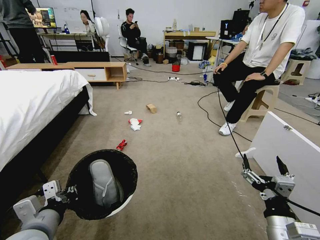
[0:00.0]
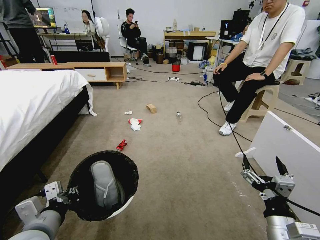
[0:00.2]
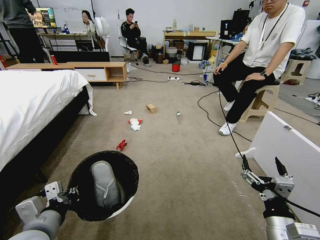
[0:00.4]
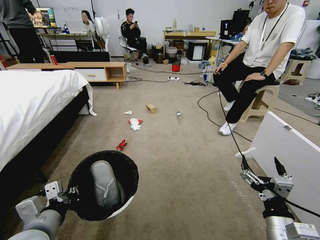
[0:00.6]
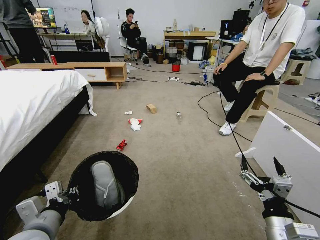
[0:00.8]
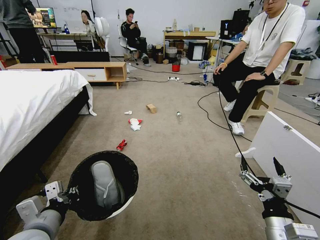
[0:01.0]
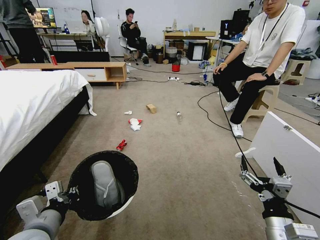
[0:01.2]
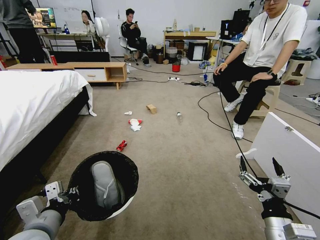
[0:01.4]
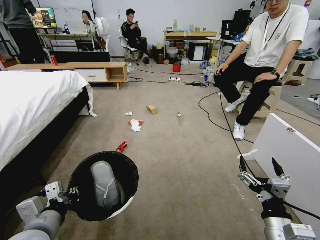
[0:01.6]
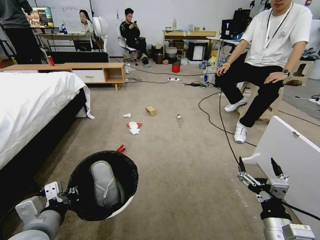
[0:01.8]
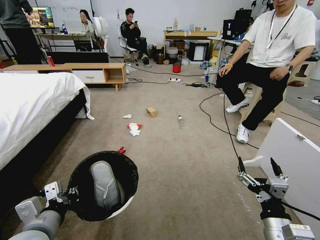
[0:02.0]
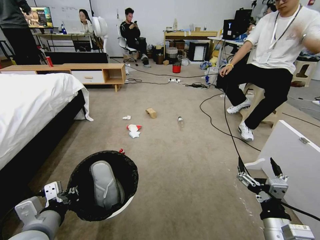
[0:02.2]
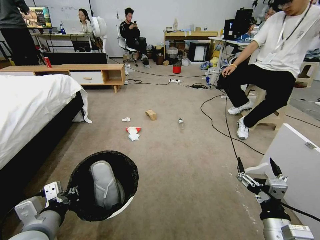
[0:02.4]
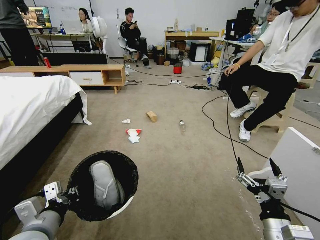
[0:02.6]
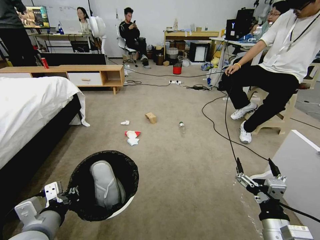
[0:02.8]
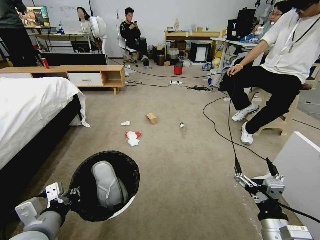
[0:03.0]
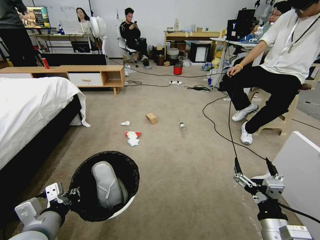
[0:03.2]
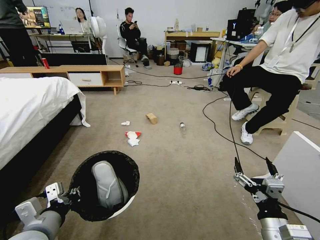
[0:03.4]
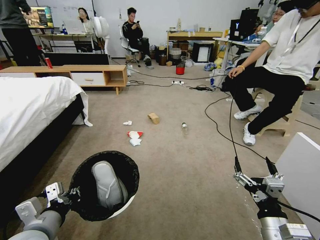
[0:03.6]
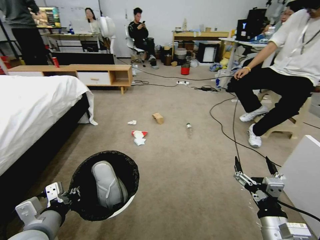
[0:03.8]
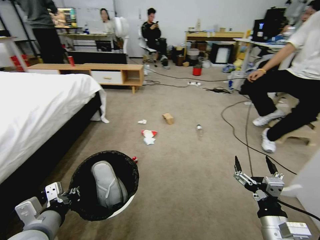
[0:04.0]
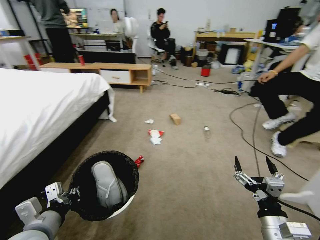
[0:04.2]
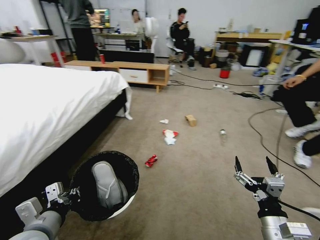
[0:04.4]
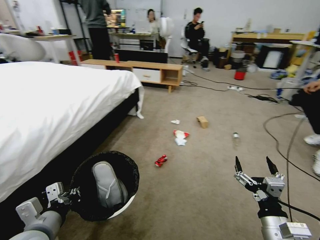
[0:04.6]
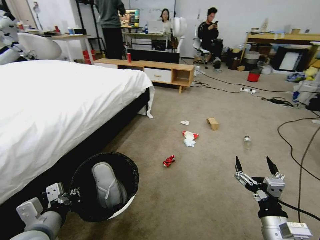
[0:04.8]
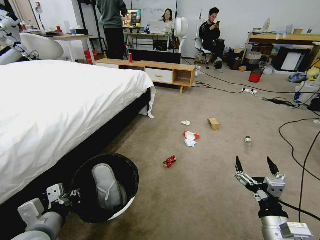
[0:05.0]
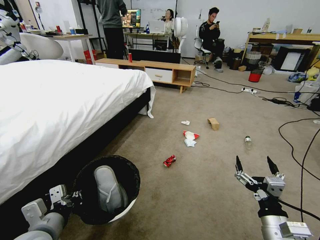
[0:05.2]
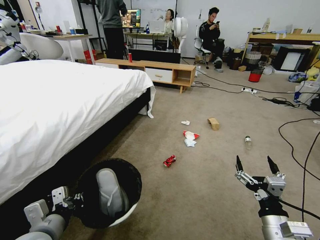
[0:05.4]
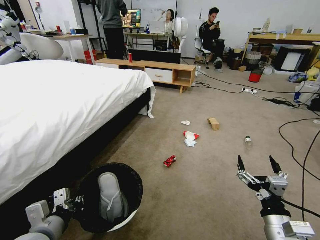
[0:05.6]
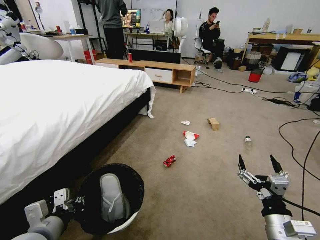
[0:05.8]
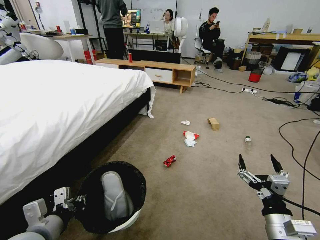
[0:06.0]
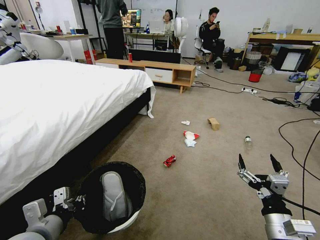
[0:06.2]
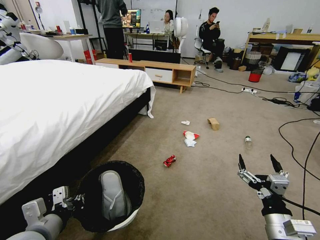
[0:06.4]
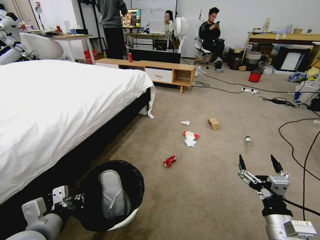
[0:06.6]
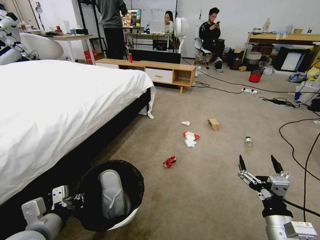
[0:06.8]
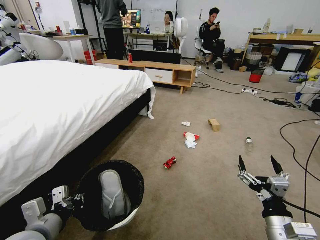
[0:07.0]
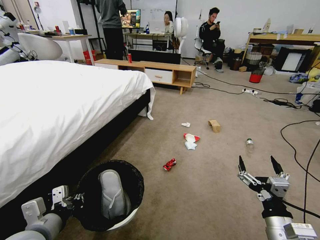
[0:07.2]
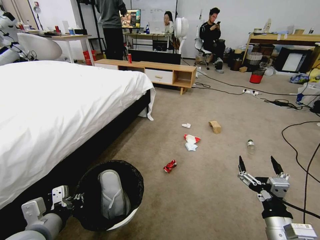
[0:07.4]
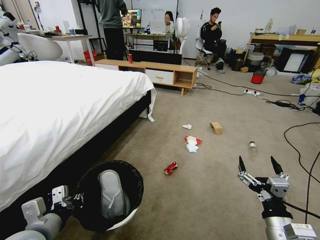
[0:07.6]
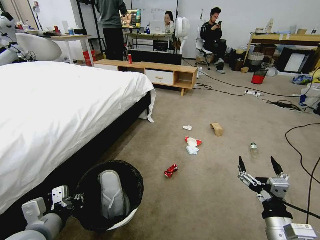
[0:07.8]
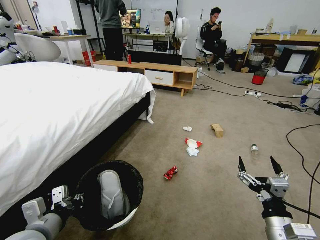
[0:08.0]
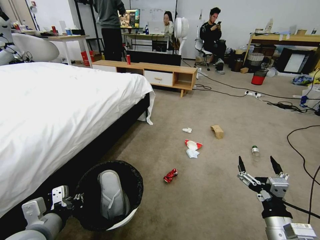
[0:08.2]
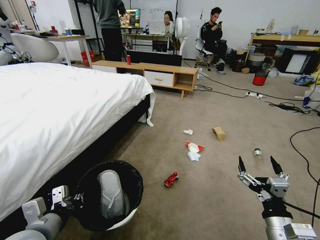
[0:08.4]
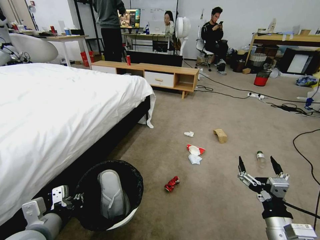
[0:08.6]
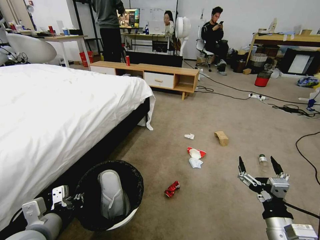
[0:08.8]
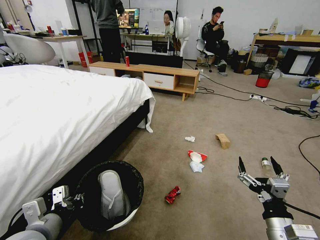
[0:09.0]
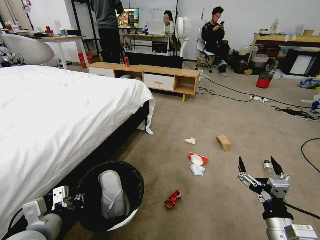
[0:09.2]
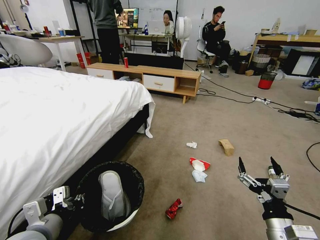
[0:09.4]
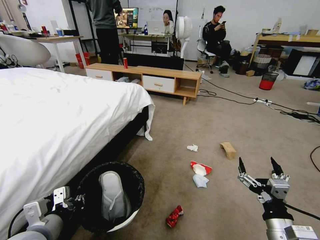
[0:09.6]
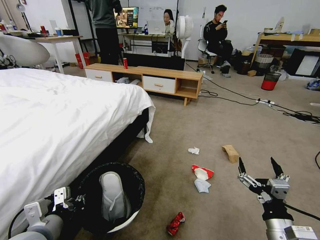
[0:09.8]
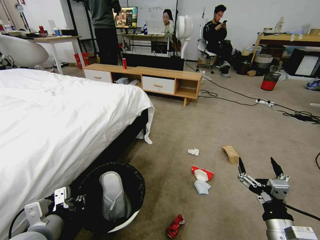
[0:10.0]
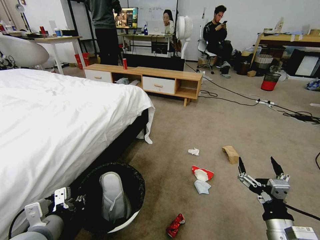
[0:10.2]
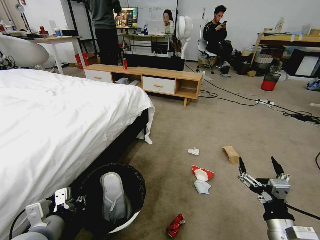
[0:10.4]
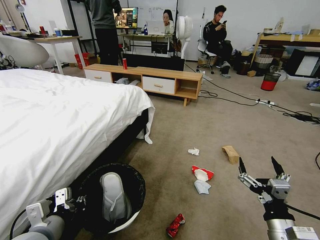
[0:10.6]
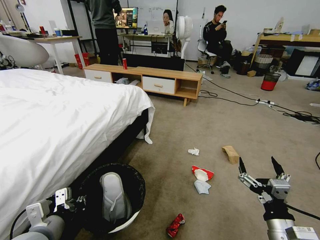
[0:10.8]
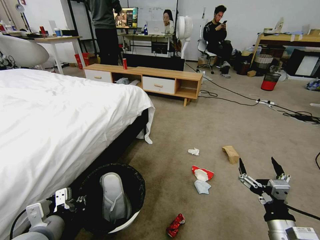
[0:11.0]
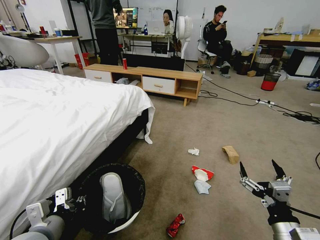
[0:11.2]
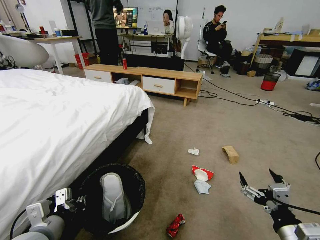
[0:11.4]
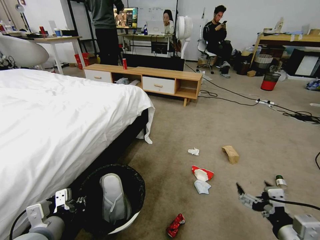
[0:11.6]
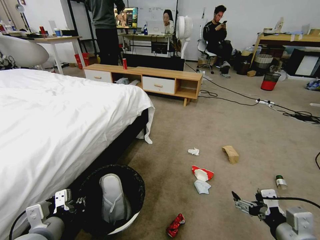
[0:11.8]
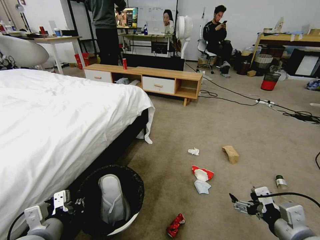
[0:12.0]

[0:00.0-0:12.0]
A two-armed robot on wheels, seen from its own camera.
Task of the whole recording: Pick up the trash bin and place the garbage on the floor into it.
0:06.0 to 0:07.6: Neither gripper changes place.
0:10.4 to 0:12.0: The right gripper moves upward, approximately 5 cm.

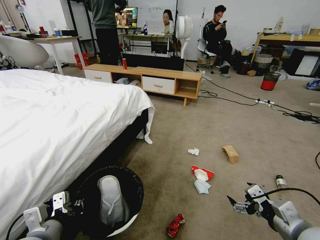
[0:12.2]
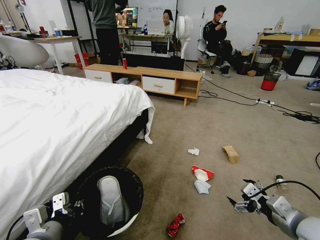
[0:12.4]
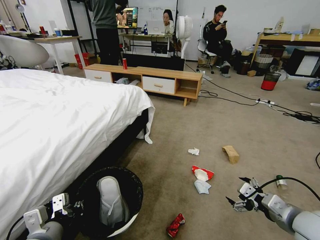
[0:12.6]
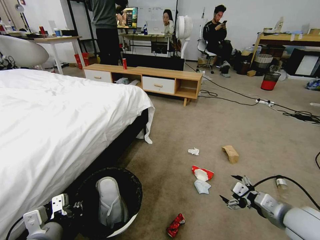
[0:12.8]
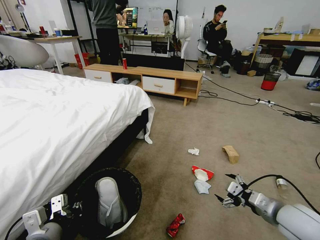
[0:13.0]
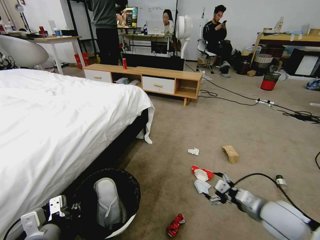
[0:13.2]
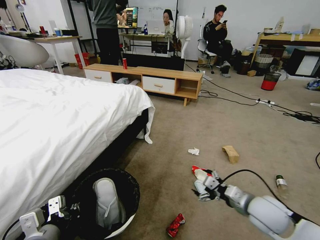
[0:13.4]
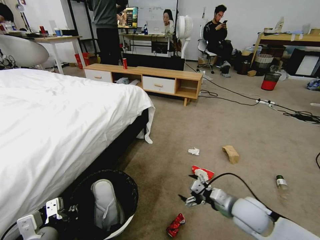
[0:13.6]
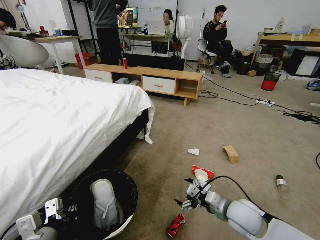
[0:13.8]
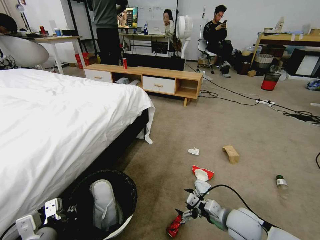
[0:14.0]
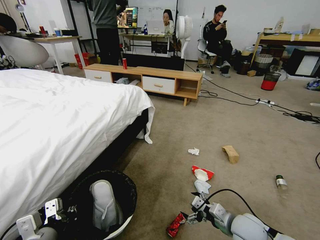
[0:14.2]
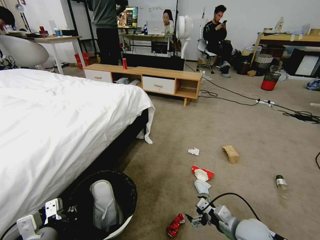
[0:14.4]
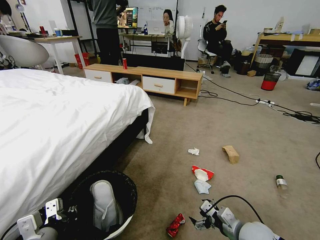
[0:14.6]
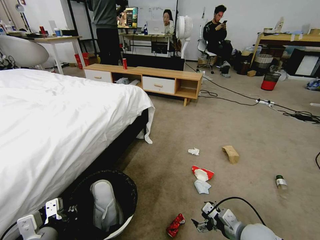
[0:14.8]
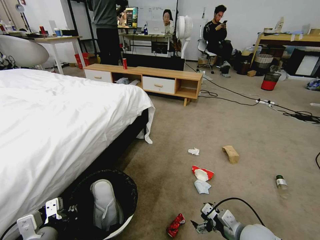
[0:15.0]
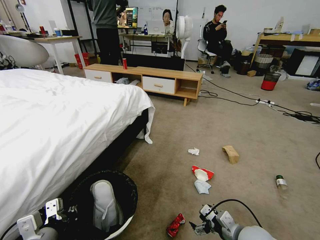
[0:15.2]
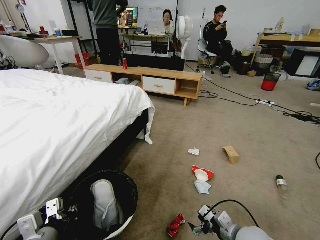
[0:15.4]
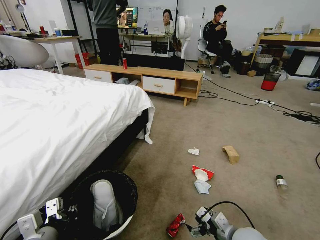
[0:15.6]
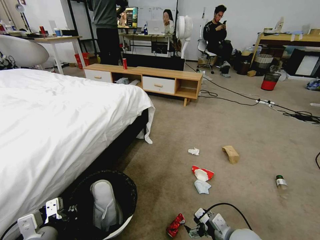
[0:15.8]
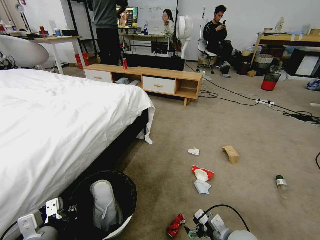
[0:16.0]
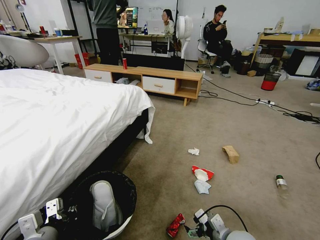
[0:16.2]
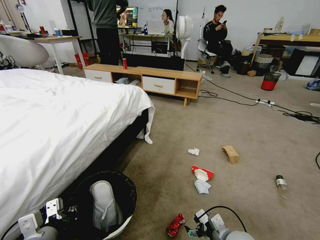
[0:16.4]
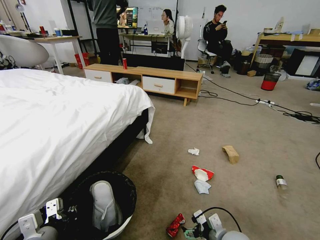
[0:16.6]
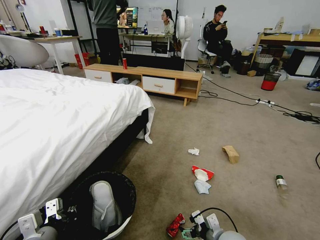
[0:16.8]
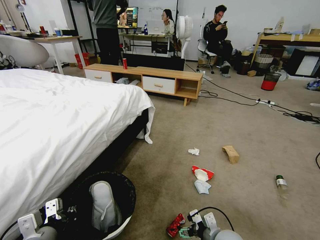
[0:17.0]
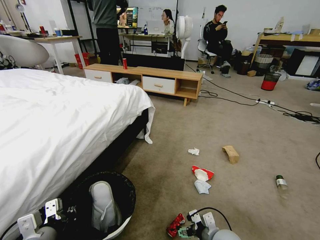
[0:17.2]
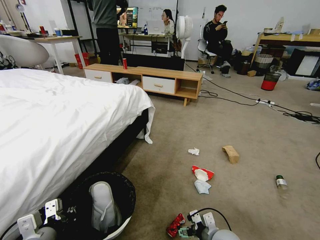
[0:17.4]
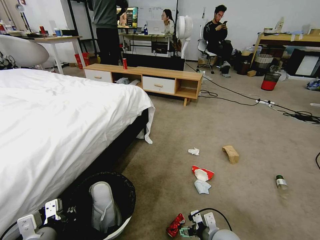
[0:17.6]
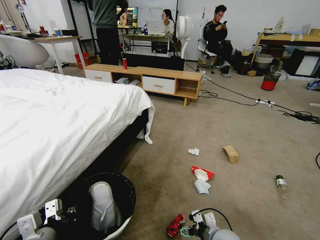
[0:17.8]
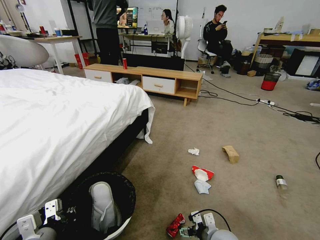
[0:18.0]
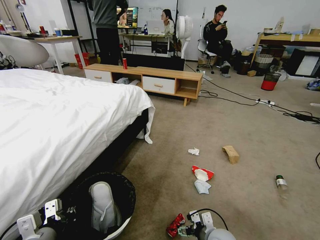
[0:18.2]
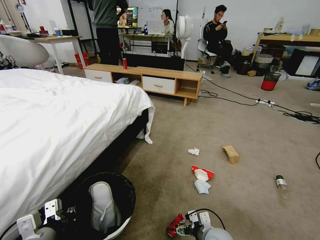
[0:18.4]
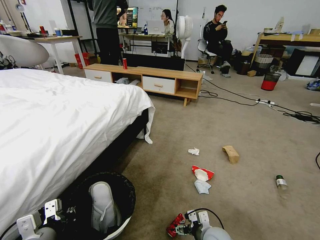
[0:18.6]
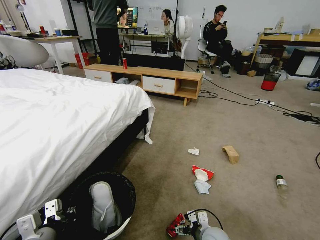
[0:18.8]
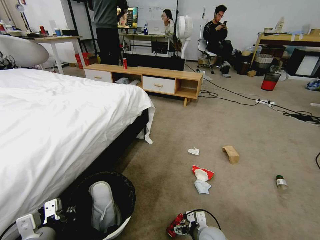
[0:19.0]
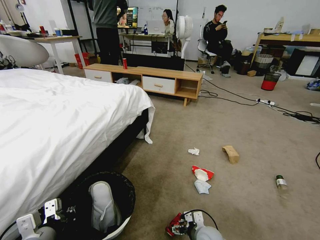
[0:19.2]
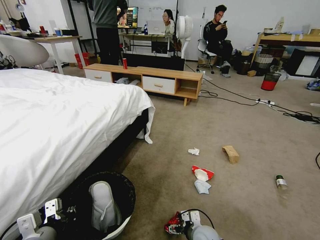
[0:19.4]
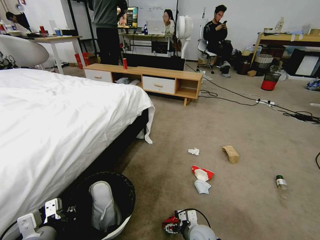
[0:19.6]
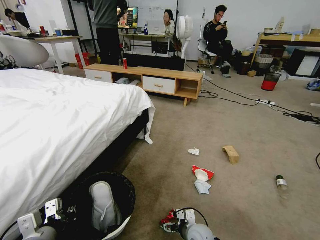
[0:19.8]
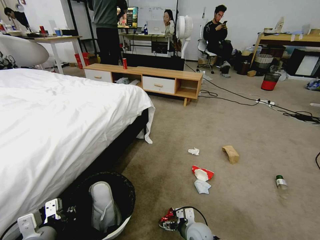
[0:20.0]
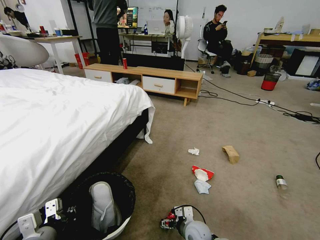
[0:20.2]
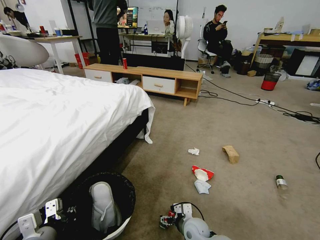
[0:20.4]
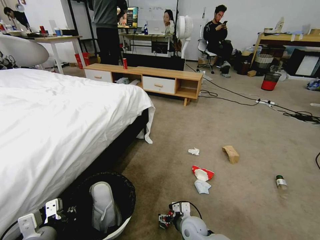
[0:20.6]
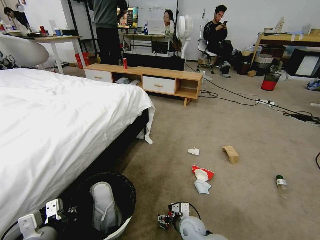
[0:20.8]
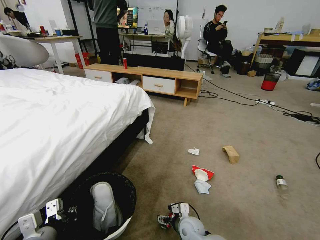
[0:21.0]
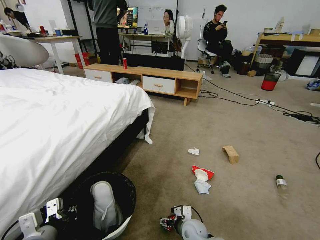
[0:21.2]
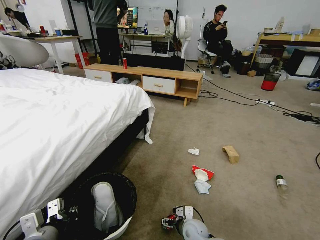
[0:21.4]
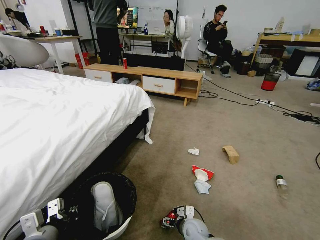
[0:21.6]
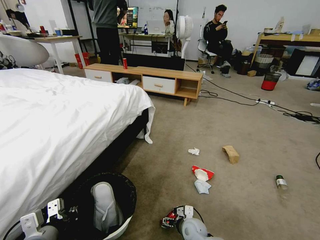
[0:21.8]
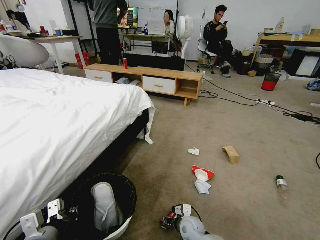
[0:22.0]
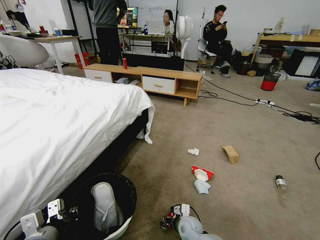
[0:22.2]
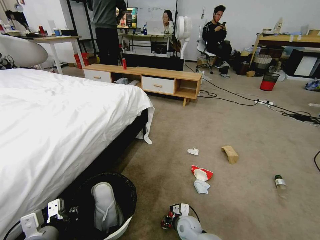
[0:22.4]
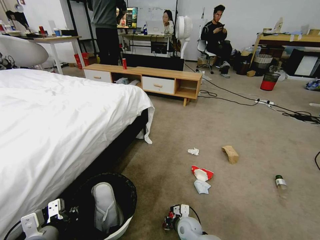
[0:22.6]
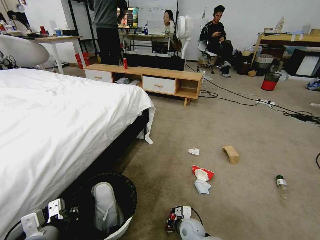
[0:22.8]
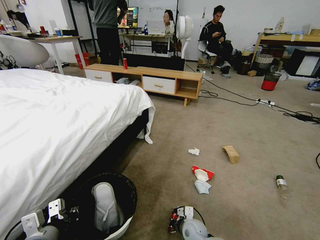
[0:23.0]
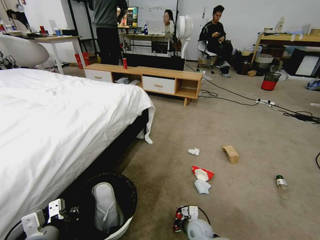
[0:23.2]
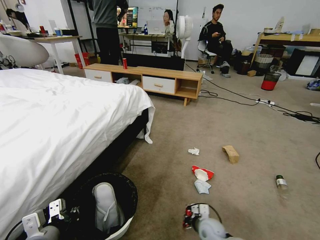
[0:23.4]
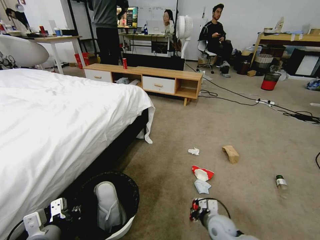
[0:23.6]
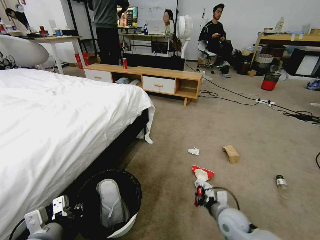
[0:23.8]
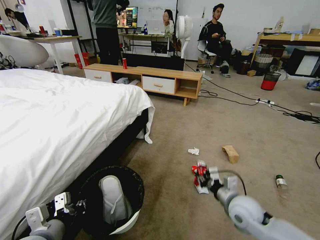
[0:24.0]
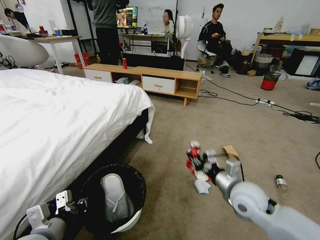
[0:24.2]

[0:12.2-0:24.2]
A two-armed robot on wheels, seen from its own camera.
Task of the whole recording: Pick up the trash bin and place the garbage on the floor into it.
0:12.2 to 0:13.8: The right gripper shifts approximately 15 cm to the left, forward and downward.
0:13.8 to 0:15.2: The right gripper shifts about 5 cm backward.
0:15.2 to 0:16.6: The right gripper shifts by approximately 5 cm.
0:16.6 to 0:18.2: The right gripper ends up approximately 5 cm from where it was.
0:18.2 to 0:19.8: The right gripper travels to the left and downward by about 10 cm.
0:19.8 to 0:21.2: The grippers move only a little.
0:21.2 to 0:22.6: The right gripper closes its fingers.
0:22.6 to 0:24.2: The right gripper shifts about 30 cm upward and to the right.
